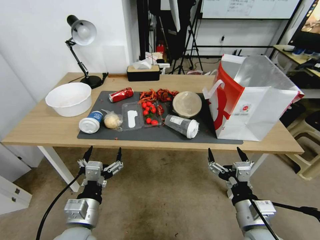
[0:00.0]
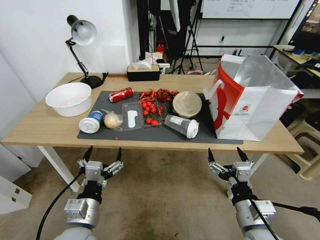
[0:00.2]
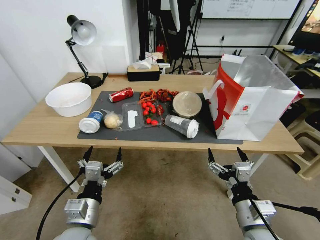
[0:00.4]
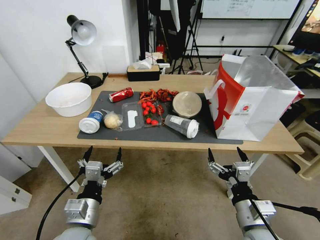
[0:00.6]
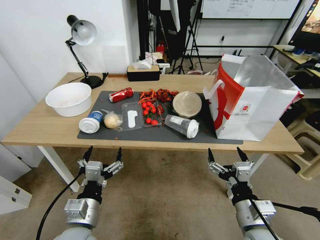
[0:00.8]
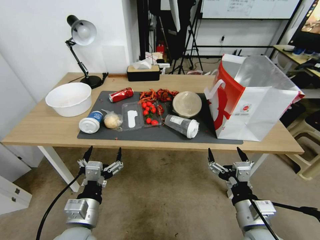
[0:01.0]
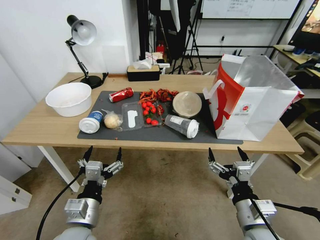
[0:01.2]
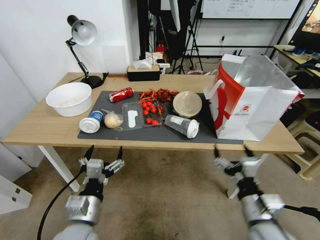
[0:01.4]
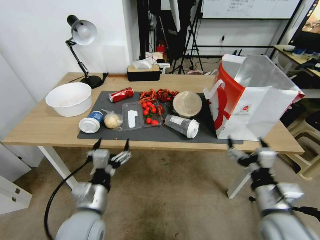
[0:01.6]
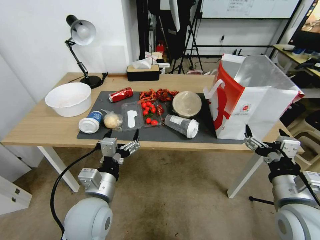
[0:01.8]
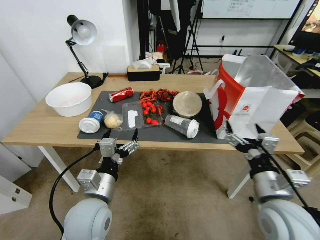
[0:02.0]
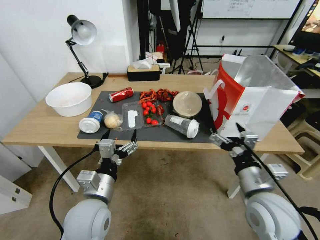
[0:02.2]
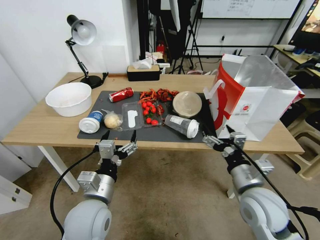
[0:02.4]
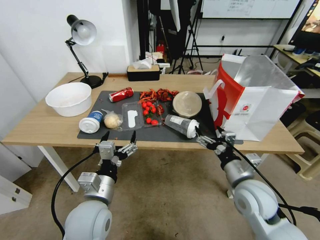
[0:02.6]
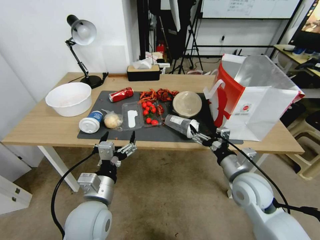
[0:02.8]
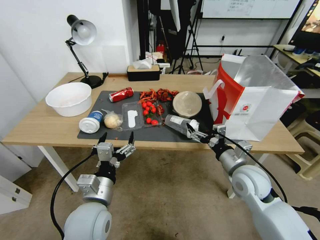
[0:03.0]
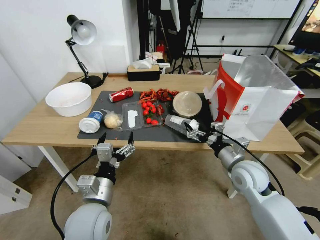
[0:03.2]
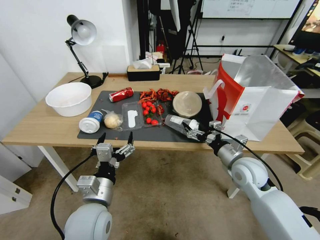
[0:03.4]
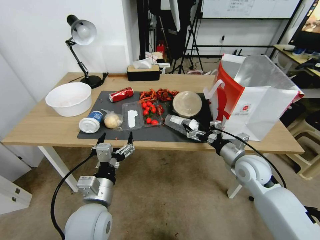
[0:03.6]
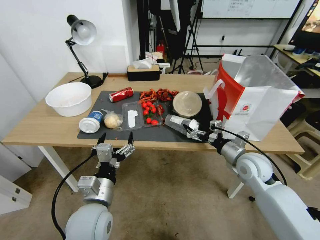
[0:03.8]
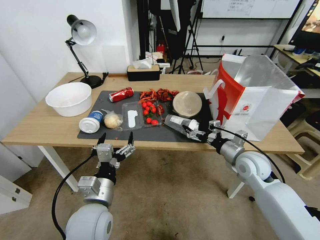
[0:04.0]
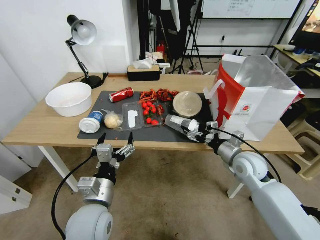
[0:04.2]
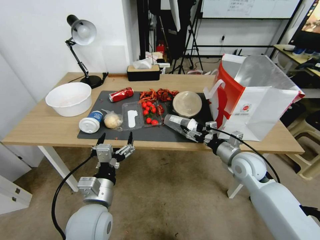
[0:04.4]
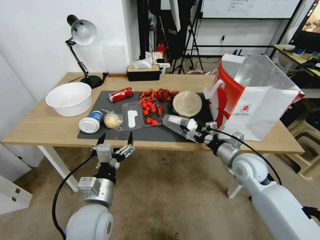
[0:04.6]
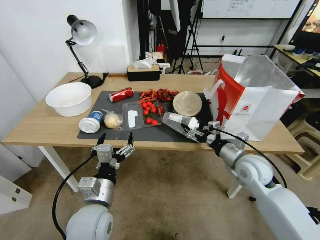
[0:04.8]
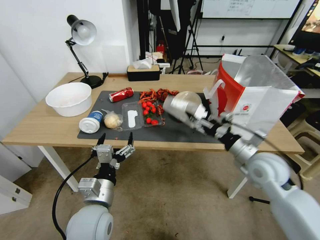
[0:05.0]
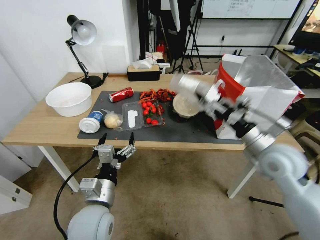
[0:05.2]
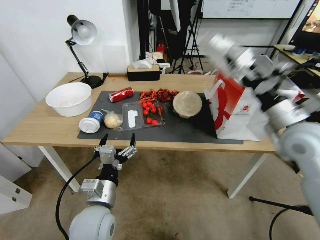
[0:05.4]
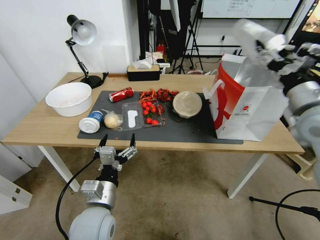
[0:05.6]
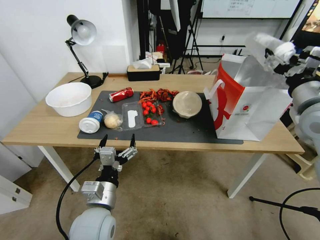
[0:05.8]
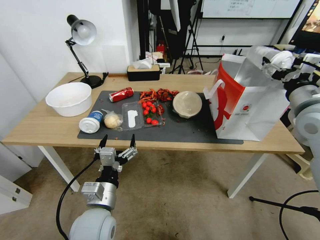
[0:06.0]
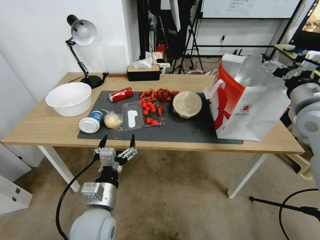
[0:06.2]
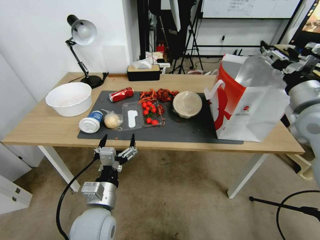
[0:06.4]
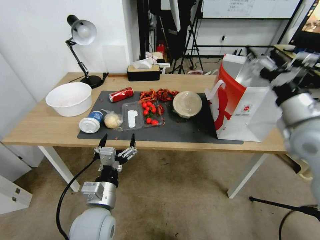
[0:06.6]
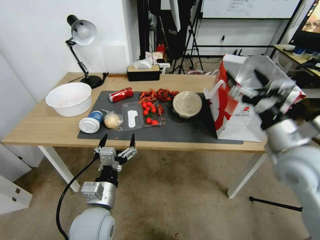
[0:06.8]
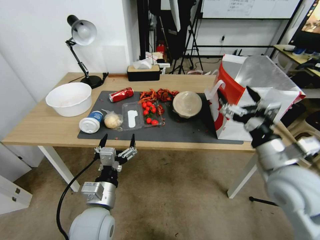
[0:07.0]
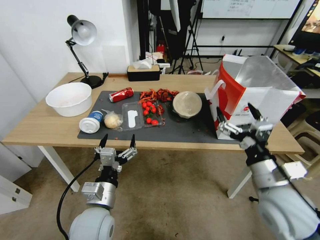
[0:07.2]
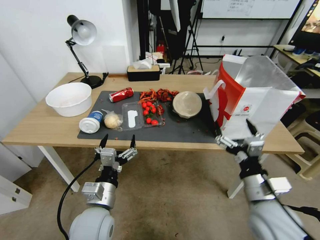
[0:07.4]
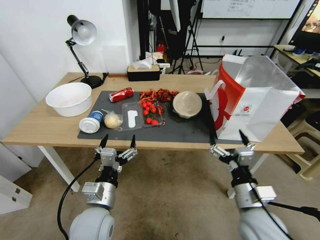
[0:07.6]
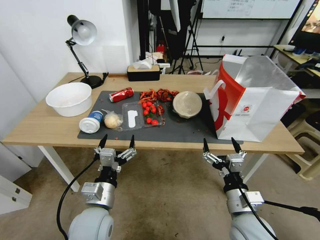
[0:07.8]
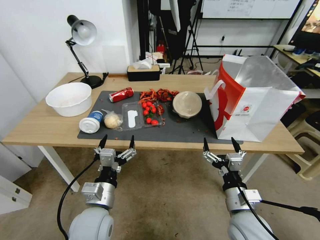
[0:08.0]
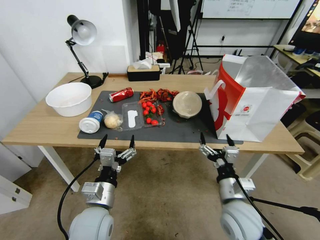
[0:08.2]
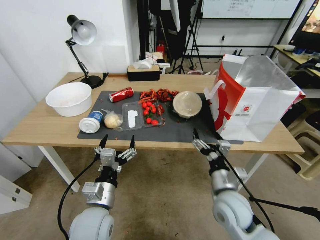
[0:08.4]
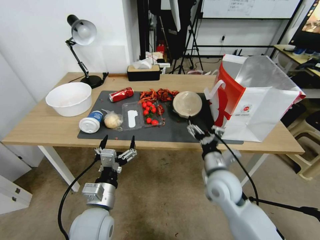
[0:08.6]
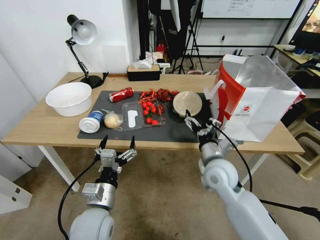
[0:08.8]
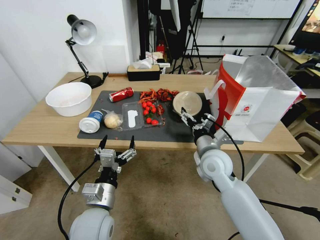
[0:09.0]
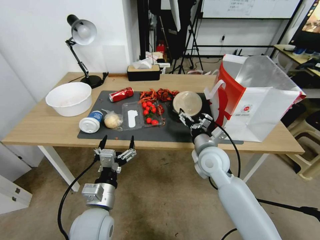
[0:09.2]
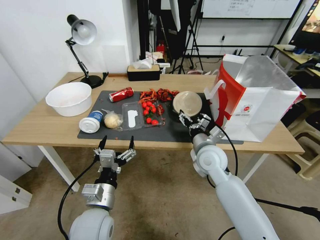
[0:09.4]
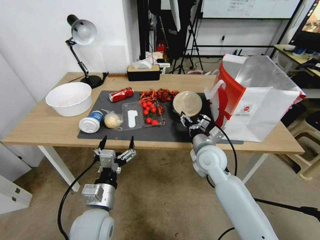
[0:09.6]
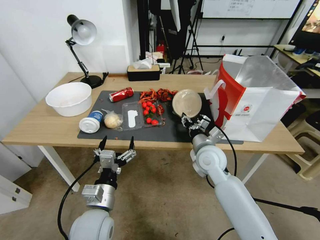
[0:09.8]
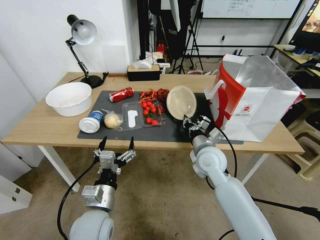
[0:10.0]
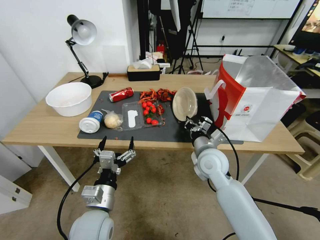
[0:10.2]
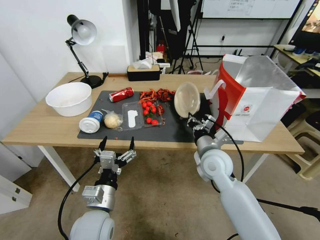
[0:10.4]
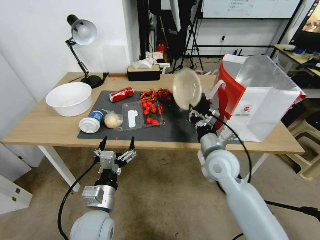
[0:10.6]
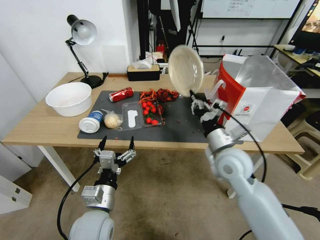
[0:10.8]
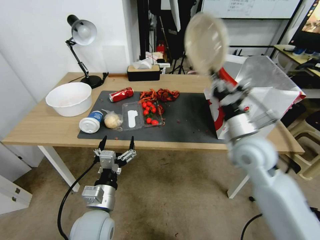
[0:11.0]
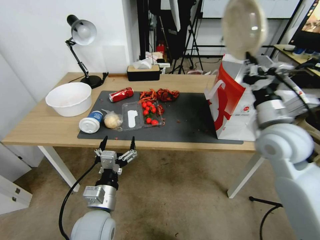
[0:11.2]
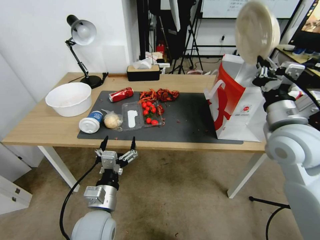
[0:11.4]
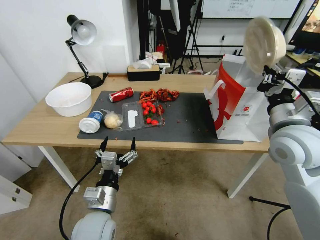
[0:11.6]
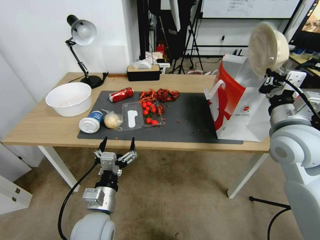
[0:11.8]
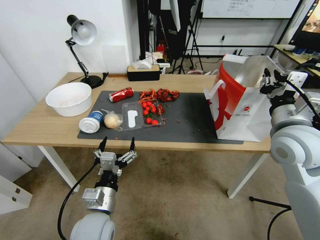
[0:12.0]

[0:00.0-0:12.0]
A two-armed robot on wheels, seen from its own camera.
0:01.6 to 0:03.0: The right gripper heads forward, covering about 10 cm.
0:03.0 to 0:04.4: The right gripper travels forward by approximately 5 cm.
0:04.4 to 0:06.0: The right gripper moves upward, about 20 cm.
0:06.0 to 0:07.6: The right gripper heads backward, downward and to the left, covering some 15 cm.
0:07.6 to 0:09.0: The right gripper heads downward and to the left, covering approximately 15 cm.
0:09.0 to 0:10.4: The right gripper goes approximately 10 cm forward, and closes.
0:10.4 to 0:12.0: The right gripper shifts roughly 20 cm upward and to the right.

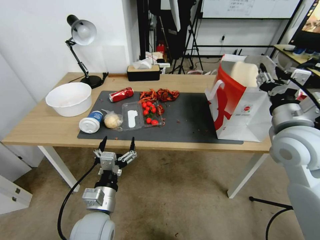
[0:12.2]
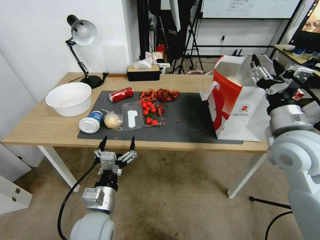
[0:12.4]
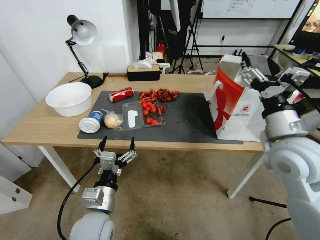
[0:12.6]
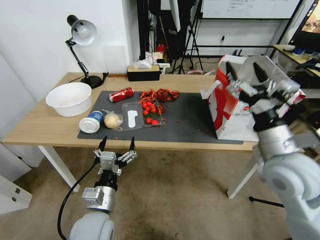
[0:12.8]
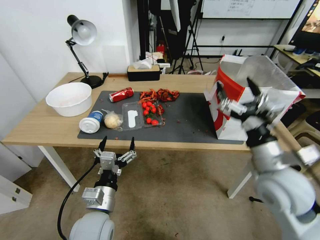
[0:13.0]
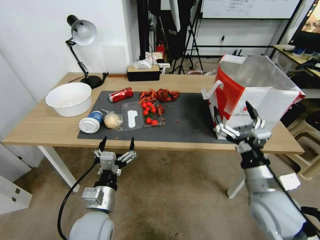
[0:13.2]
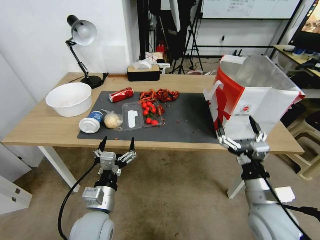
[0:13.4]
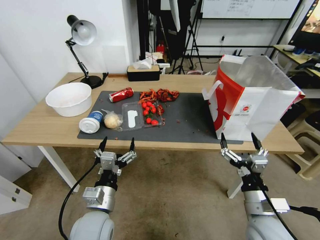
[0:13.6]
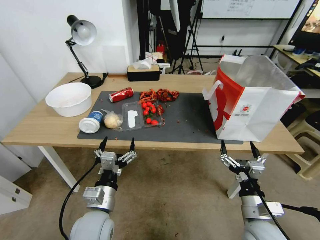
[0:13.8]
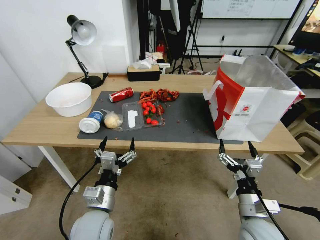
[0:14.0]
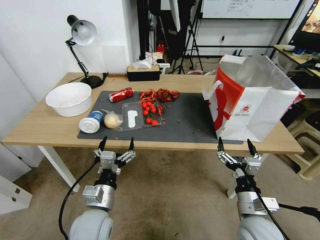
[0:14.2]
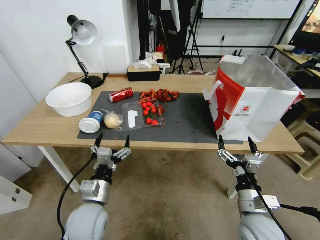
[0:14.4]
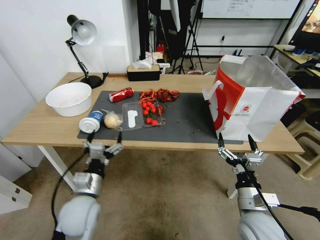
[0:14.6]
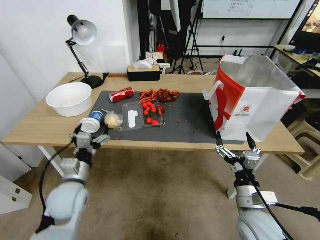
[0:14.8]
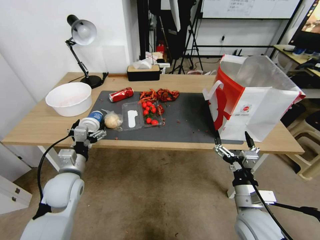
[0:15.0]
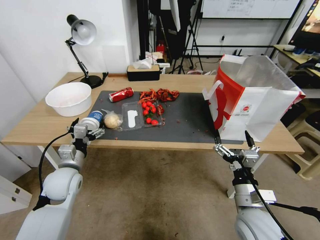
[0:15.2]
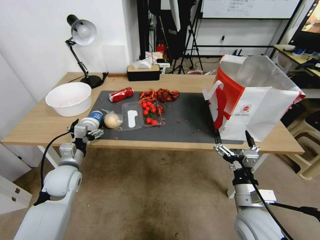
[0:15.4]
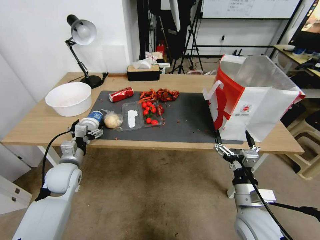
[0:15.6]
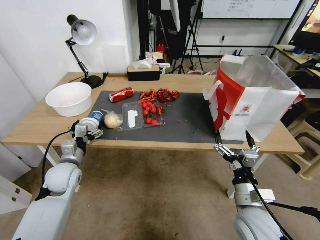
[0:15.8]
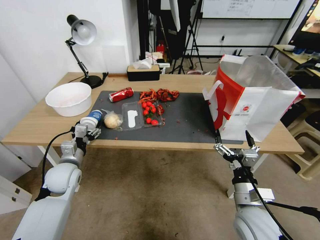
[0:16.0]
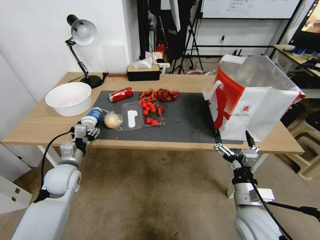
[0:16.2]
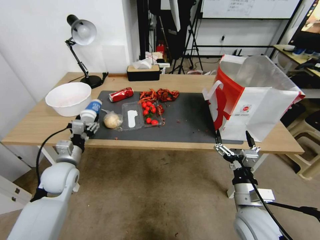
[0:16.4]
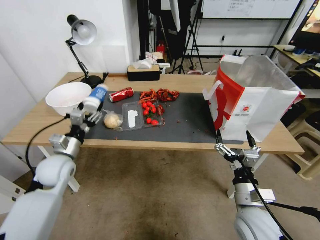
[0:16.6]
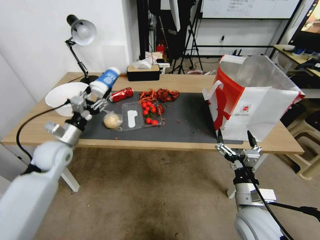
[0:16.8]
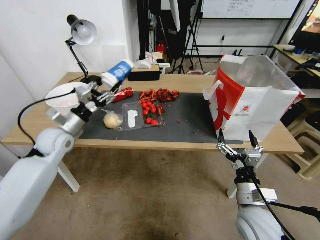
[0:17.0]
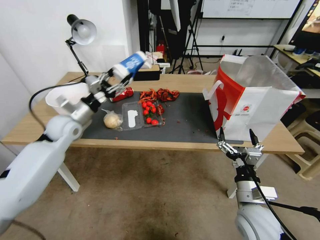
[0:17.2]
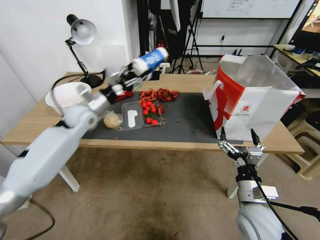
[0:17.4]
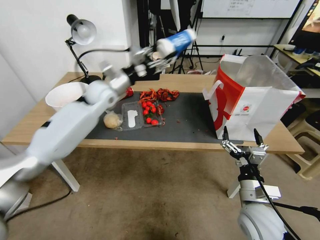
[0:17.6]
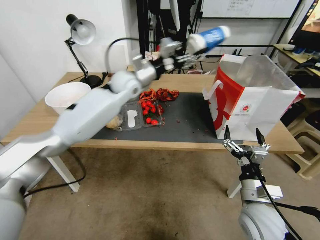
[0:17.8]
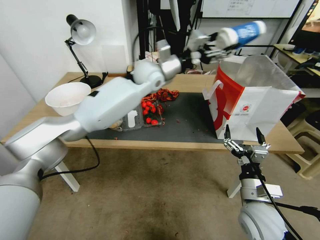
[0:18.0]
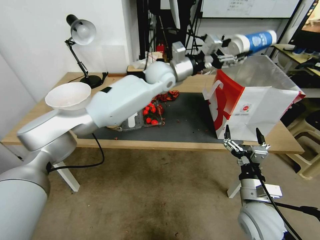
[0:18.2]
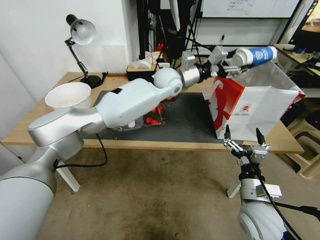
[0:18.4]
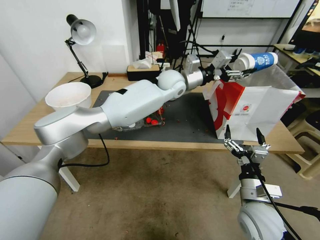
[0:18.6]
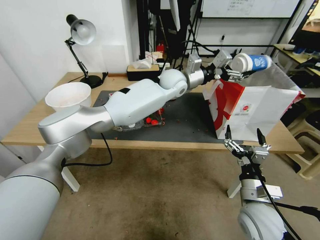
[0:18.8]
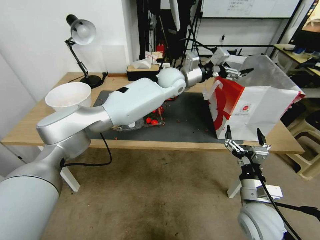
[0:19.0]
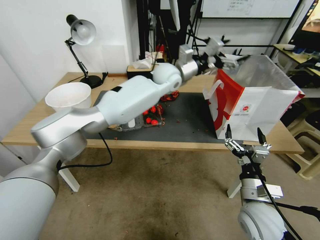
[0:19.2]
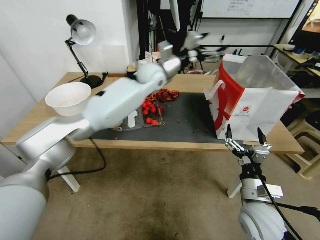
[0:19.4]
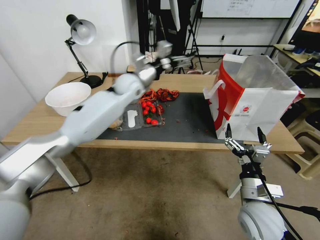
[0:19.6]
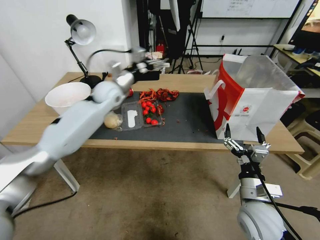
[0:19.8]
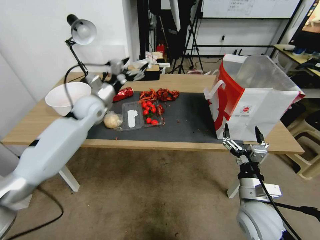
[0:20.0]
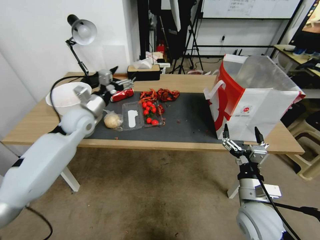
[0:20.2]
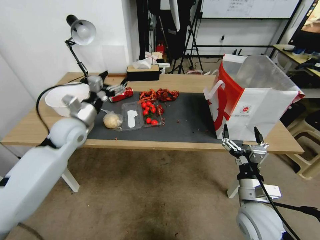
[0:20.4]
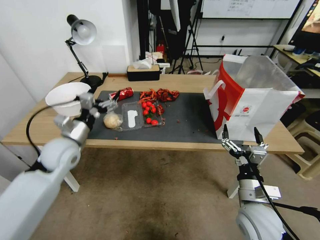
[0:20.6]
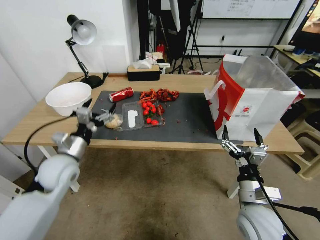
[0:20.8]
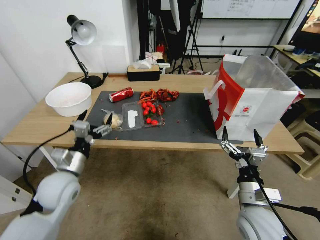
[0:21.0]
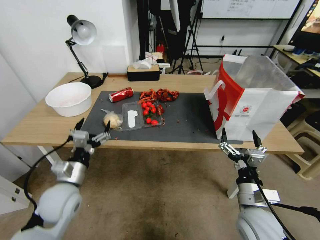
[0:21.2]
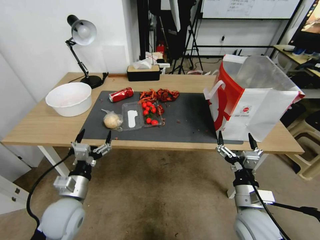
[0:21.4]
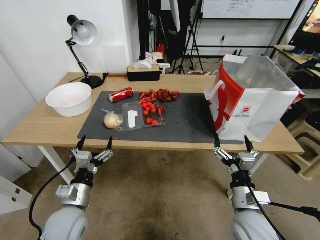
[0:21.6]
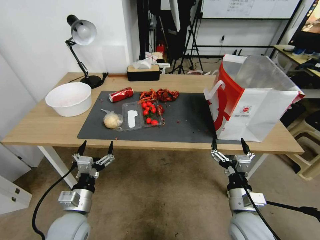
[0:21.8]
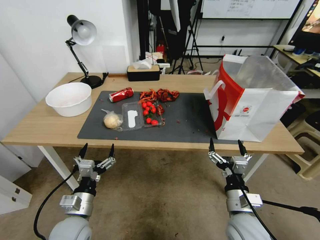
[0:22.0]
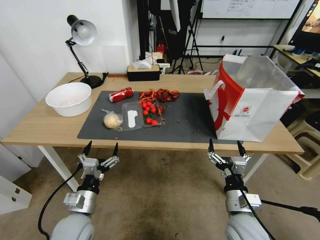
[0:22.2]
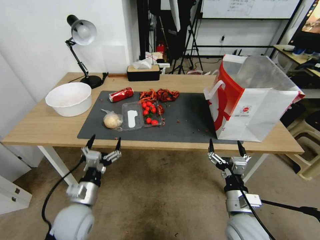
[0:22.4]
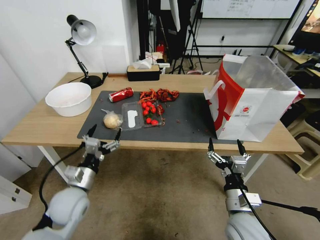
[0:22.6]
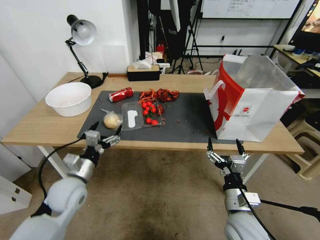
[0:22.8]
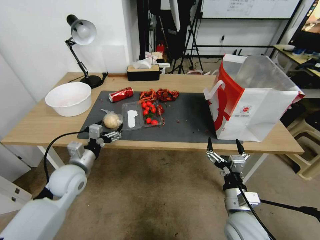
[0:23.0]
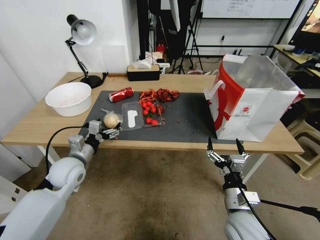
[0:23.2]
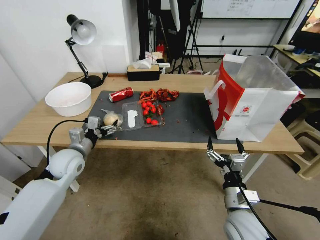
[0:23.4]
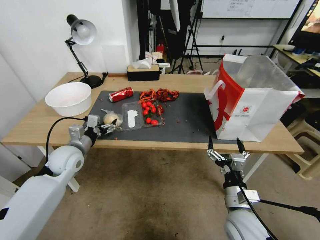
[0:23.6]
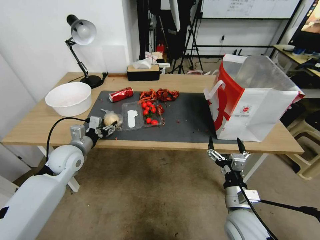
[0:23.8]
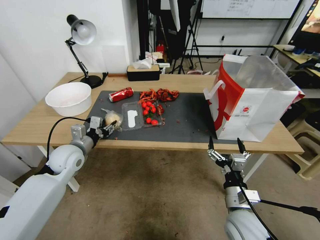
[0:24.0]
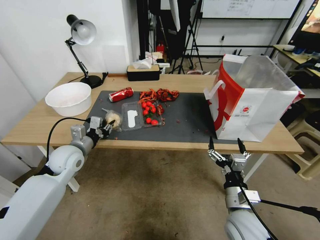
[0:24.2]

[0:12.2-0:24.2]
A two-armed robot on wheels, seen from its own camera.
0:12.2 to 0:13.8: The right gripper is displaced downward and backward by roughly 15 cm, and opens up.
0:13.8 to 0:15.2: The right gripper heads downward, covering roughly 10 cm.
0:15.2 to 0:16.6: The left gripper travels to the left and forward by approximately 20 cm, and closes up.
0:16.6 to 0:18.2: The left gripper travels upward and forward by some 10 cm.
0:18.2 to 0:19.8: The left gripper travels to the right, forward and upward by about 40 cm, and opens up.
0:19.8 to 0:21.2: The left gripper goes approximately 20 cm to the left and downward.
0:21.2 to 0:22.6: The left gripper travels backward and downward by roughly 30 cm.
0:22.6 to 0:24.2: The left gripper heads forward, covering about 10 cm, and closes up.
